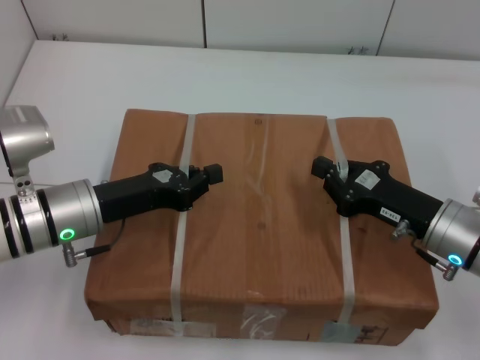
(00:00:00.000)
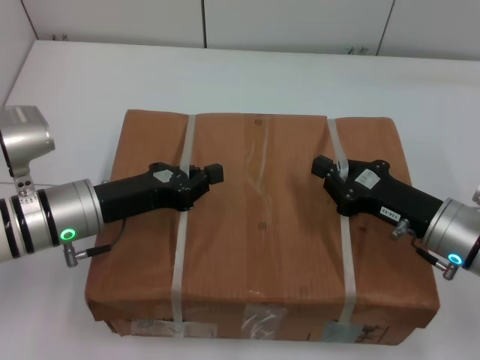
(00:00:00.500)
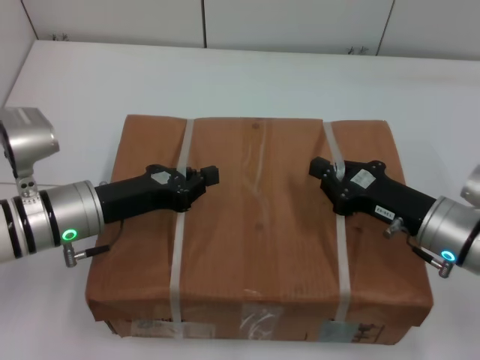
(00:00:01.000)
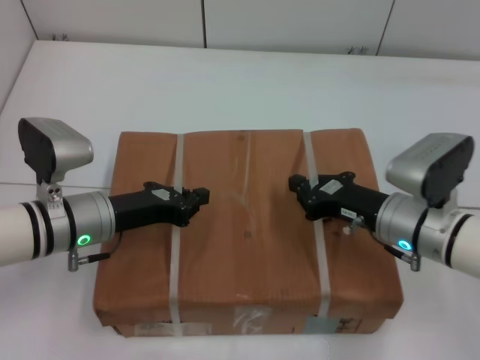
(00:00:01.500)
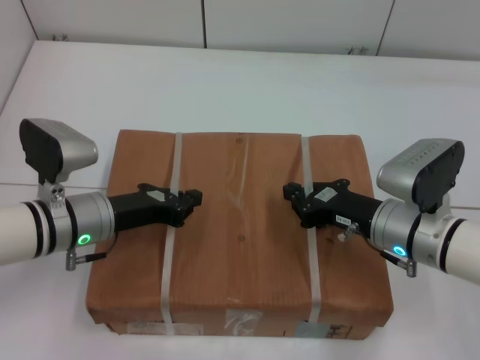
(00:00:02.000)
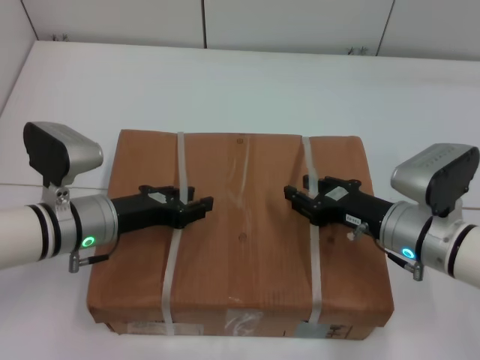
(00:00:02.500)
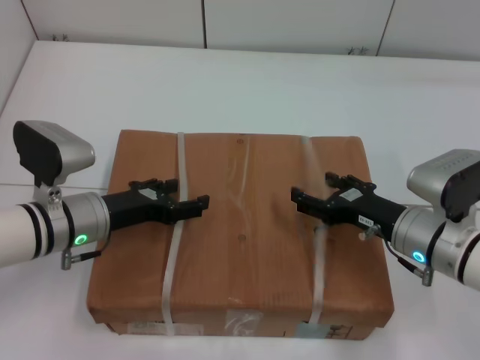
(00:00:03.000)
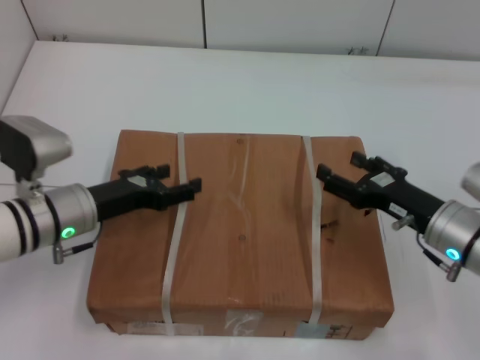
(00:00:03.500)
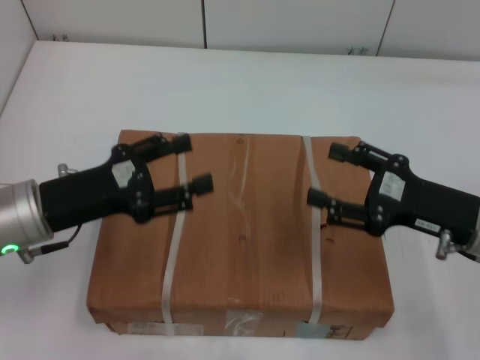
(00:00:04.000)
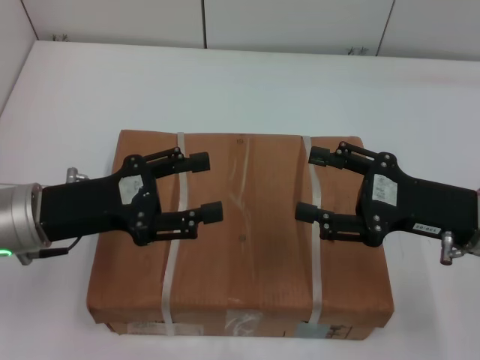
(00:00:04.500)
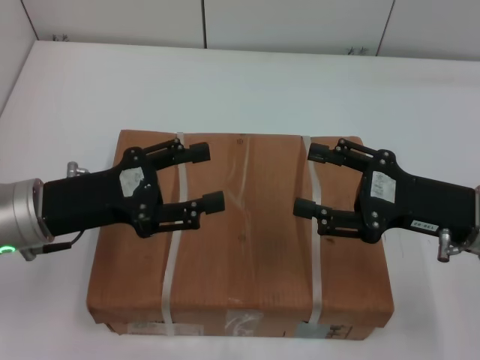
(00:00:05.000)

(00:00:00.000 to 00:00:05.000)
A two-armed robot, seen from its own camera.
Task of the whole recording: place the box on the table with both arms.
Step, 00:00:00.000 - 00:00:01.500: Place the box on the table with left gripper.
Step, 00:00:00.000 - 00:00:01.500: Place the box on the table with right gripper.
Step, 00:00:02.000 - 00:00:03.000: Loosen the box on the table with left gripper.
Step, 00:00:02.000 - 00:00:03.000: Loosen the box on the table with right gripper.
00:00:00.000 - 00:00:02.500: The left gripper opens. The right gripper opens.
00:00:02.500 - 00:00:05.000: The left gripper goes approximately 10 cm upward, and opens its fingers. Meanwhile the right gripper is displaced upward and to the right by about 10 cm, and opens its fingers.
